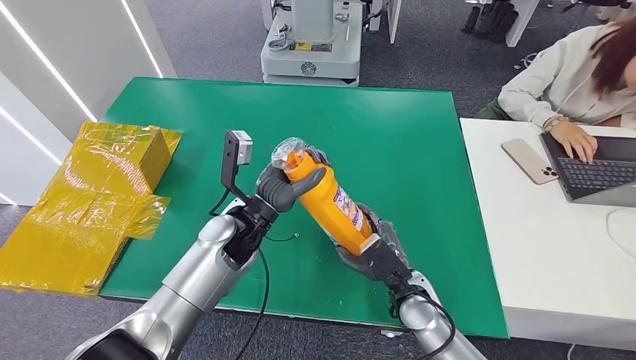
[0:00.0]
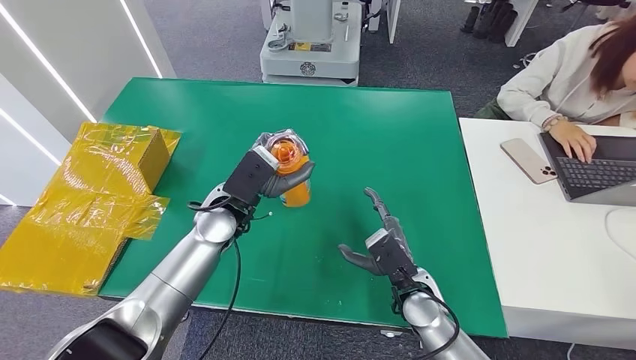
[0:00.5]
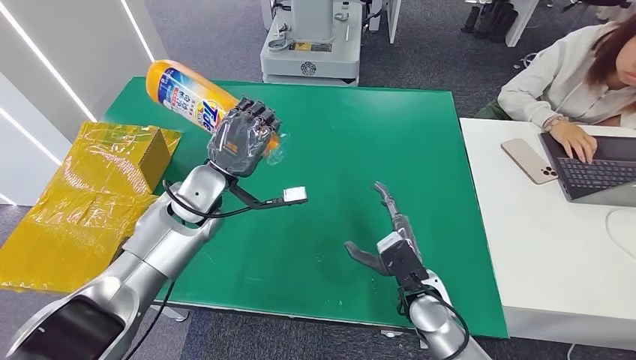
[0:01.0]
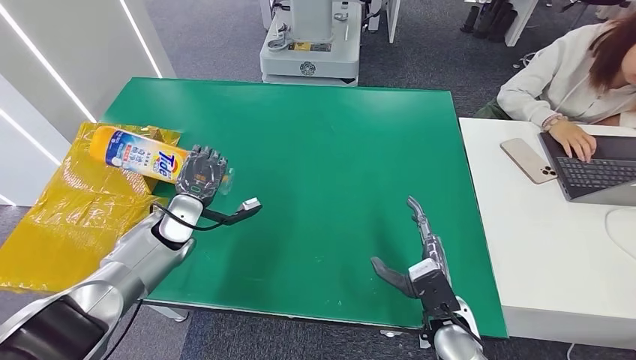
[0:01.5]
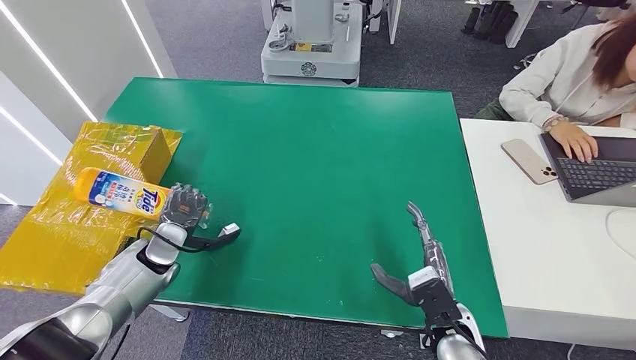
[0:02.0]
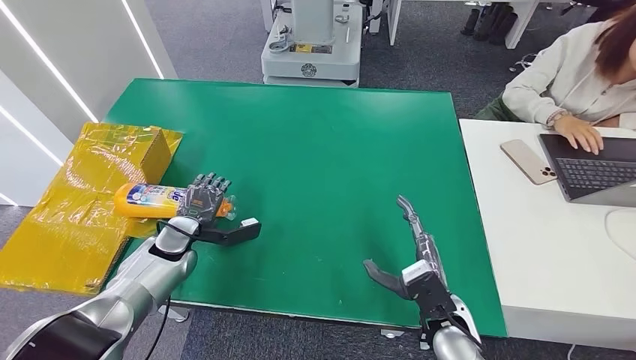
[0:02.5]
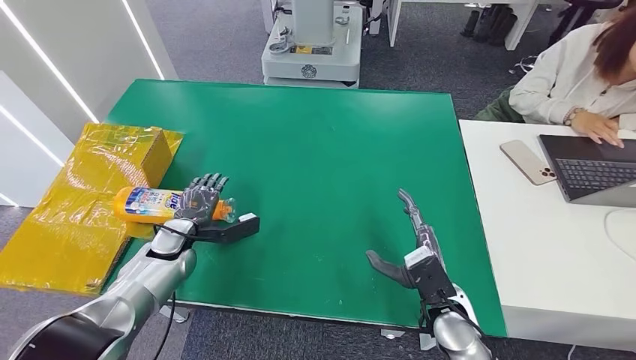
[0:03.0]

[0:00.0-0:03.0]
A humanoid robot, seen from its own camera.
Step, 0:00.0 to 0:03.0: Turn the bottle to the front side.
0:01.5 to 0:03.0: The left hand is displaced downward by some 5 cm.
